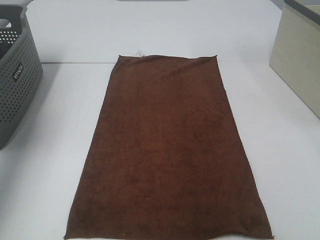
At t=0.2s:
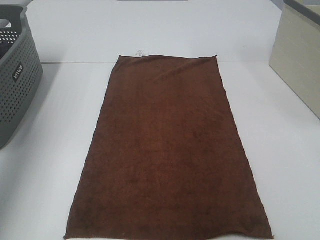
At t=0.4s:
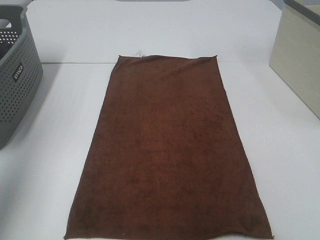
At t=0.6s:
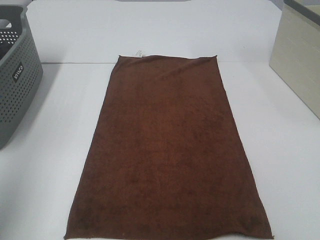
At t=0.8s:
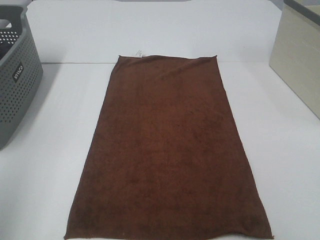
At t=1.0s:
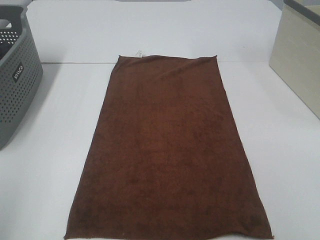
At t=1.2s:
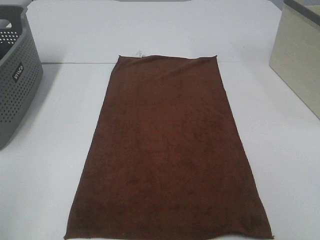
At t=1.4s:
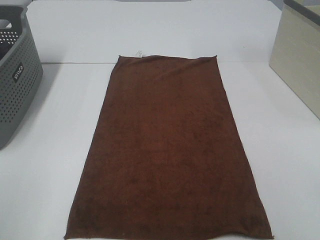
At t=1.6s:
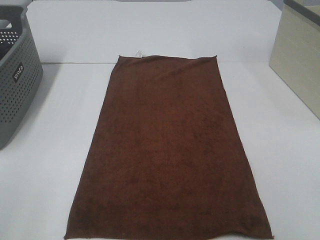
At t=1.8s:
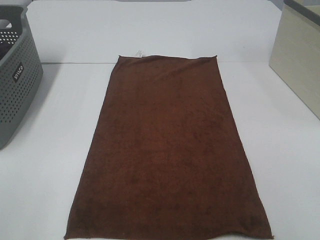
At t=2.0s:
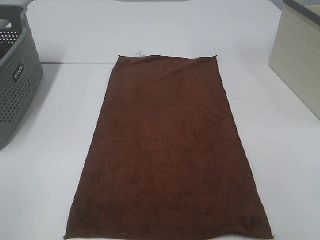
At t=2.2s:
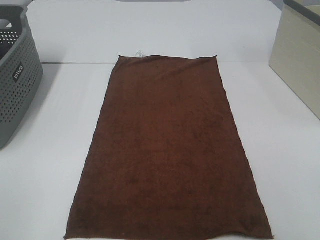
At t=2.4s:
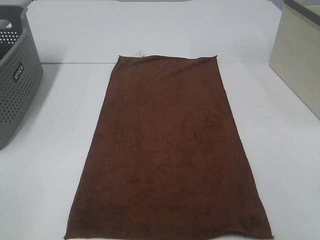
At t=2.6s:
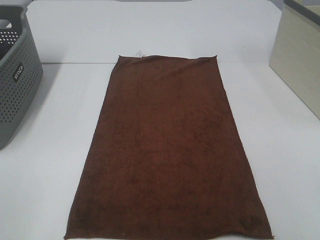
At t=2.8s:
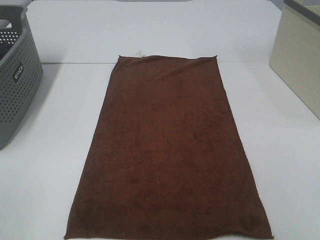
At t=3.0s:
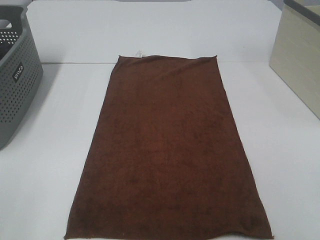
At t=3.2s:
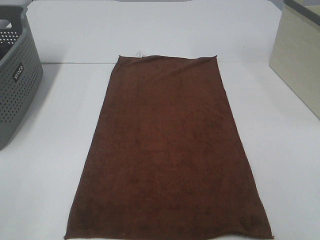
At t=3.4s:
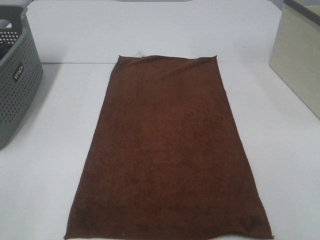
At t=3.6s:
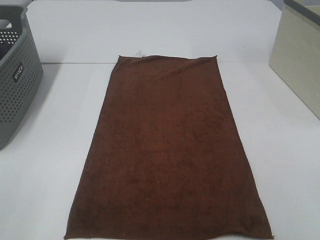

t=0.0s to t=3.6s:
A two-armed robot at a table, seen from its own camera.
Task of the whole recording: Remove the towel and place it.
t=0.0s to t=1.8s: The left gripper travels backward by roughly 30 cm.

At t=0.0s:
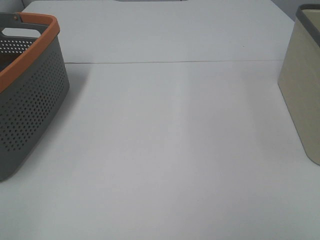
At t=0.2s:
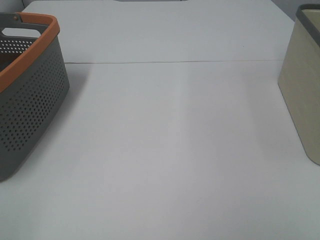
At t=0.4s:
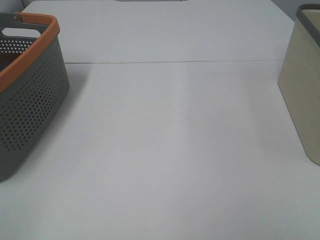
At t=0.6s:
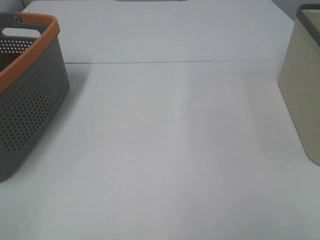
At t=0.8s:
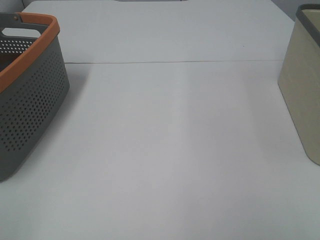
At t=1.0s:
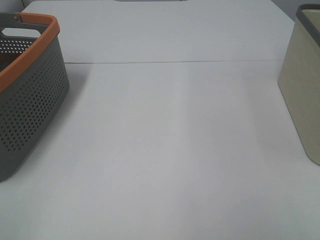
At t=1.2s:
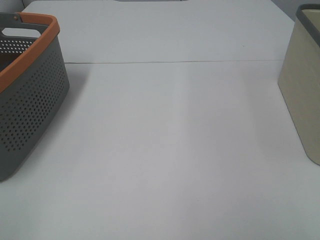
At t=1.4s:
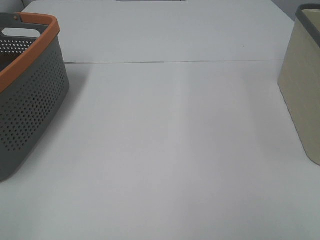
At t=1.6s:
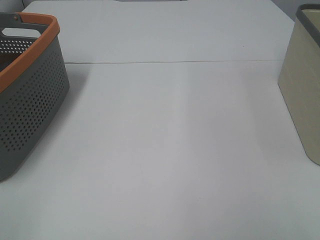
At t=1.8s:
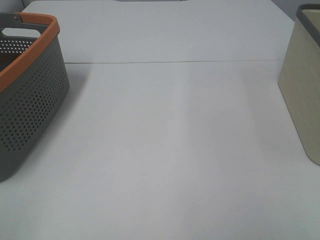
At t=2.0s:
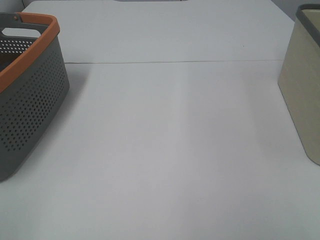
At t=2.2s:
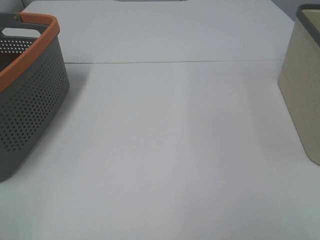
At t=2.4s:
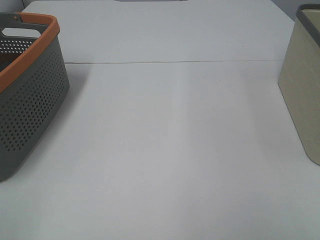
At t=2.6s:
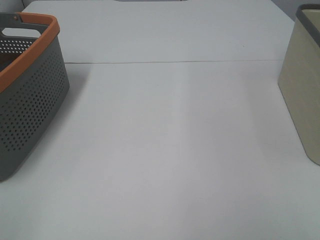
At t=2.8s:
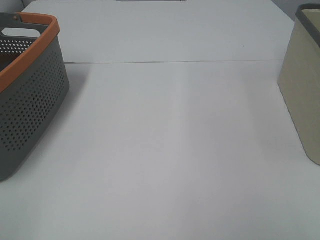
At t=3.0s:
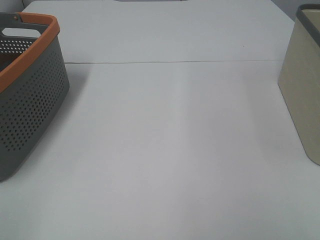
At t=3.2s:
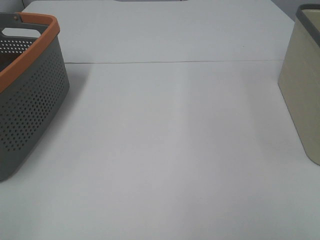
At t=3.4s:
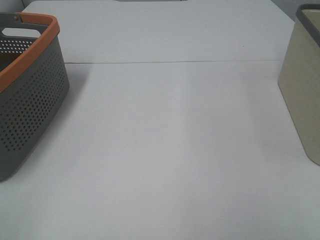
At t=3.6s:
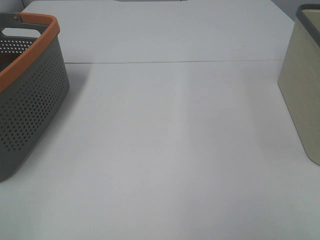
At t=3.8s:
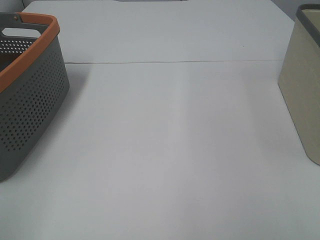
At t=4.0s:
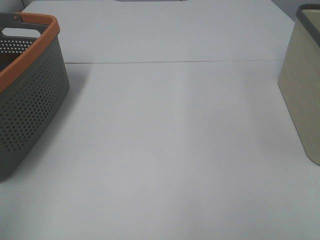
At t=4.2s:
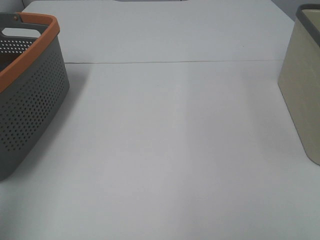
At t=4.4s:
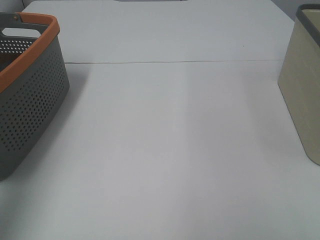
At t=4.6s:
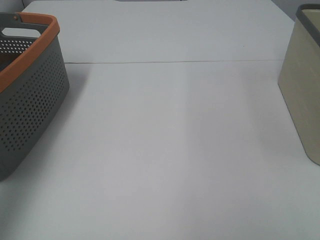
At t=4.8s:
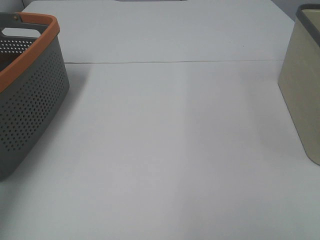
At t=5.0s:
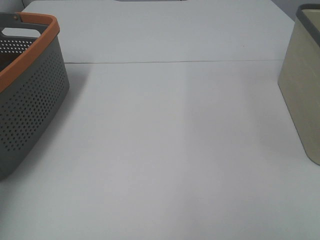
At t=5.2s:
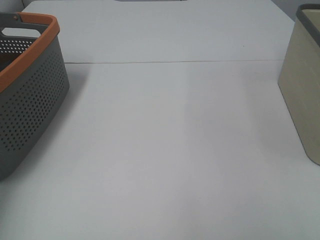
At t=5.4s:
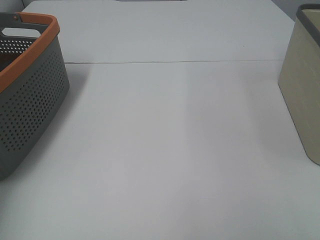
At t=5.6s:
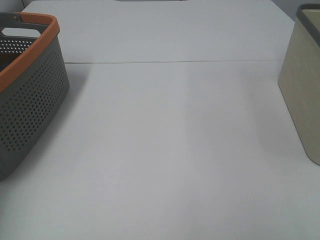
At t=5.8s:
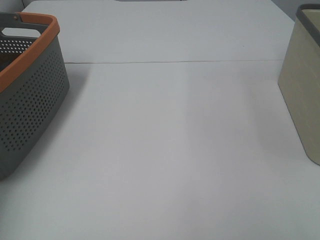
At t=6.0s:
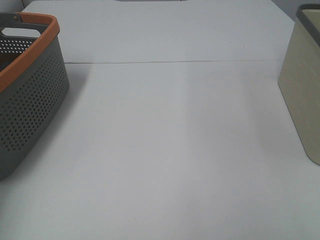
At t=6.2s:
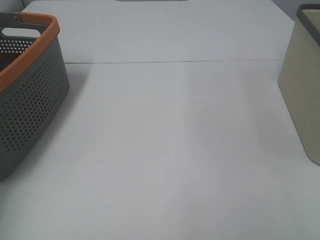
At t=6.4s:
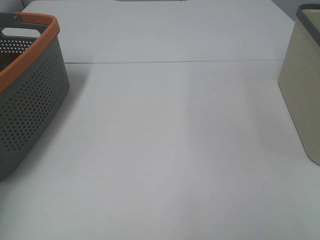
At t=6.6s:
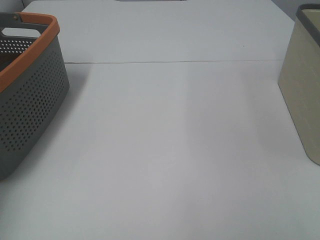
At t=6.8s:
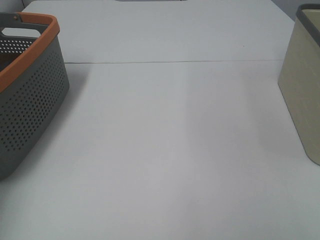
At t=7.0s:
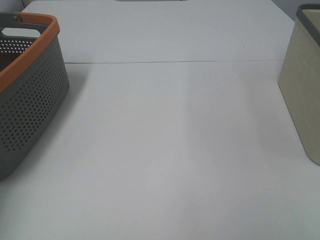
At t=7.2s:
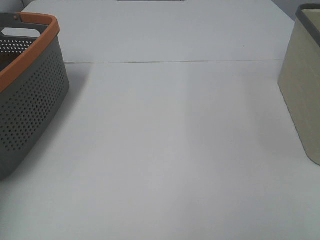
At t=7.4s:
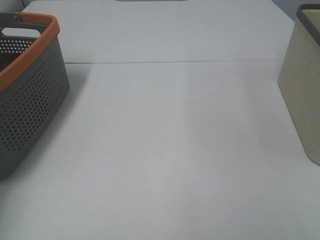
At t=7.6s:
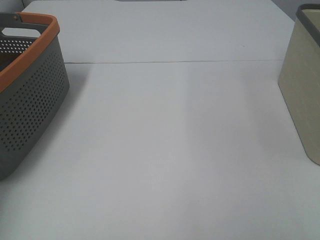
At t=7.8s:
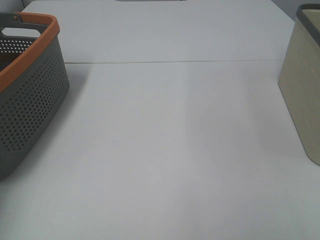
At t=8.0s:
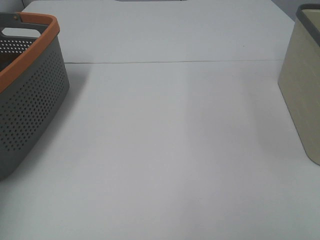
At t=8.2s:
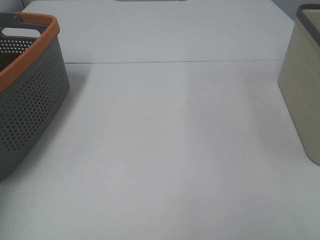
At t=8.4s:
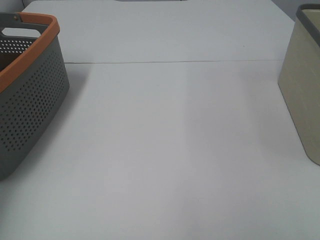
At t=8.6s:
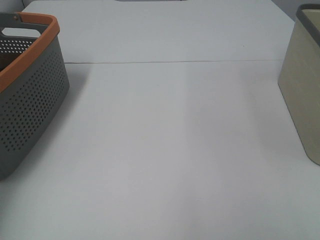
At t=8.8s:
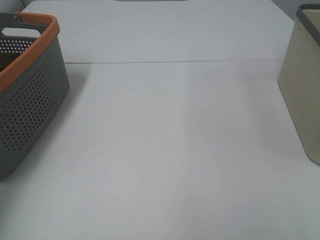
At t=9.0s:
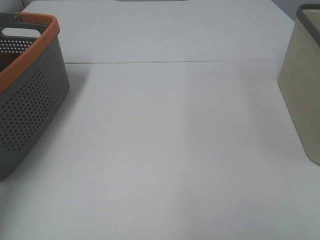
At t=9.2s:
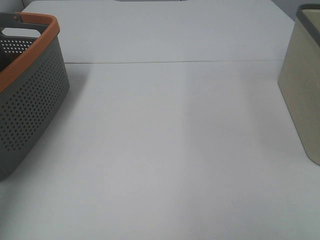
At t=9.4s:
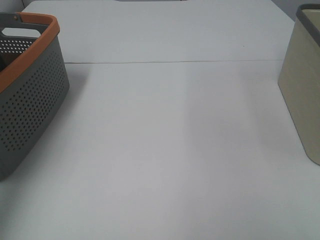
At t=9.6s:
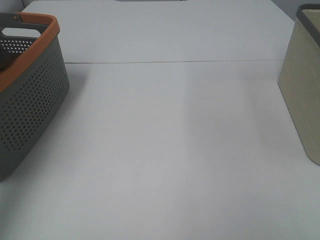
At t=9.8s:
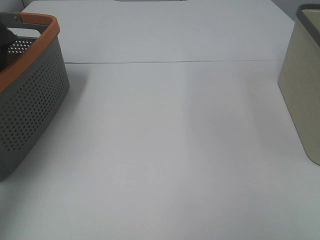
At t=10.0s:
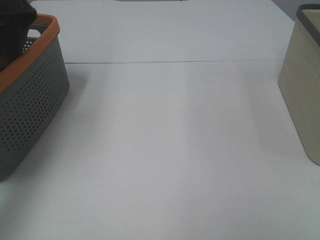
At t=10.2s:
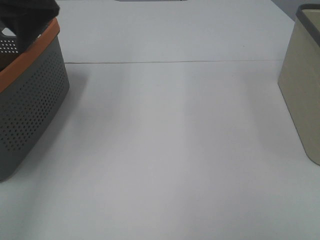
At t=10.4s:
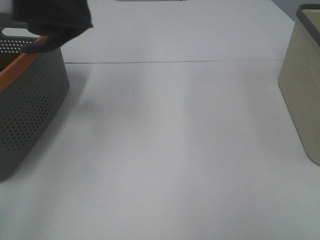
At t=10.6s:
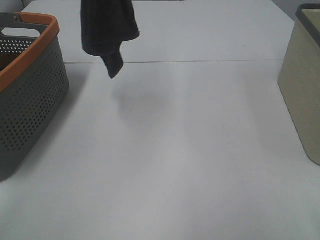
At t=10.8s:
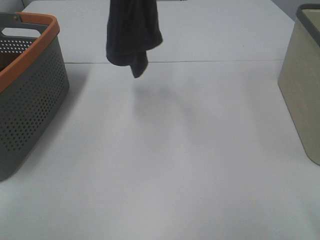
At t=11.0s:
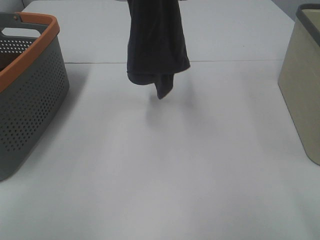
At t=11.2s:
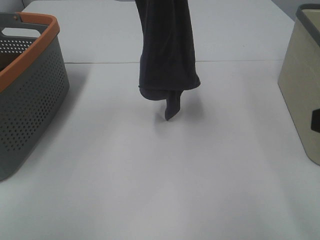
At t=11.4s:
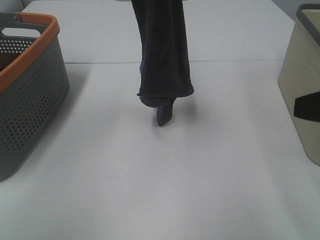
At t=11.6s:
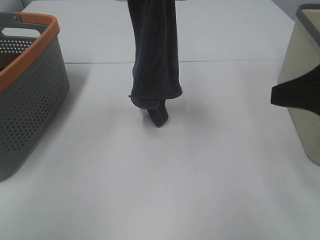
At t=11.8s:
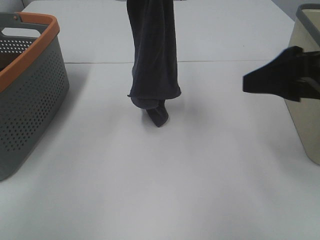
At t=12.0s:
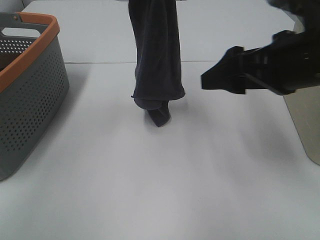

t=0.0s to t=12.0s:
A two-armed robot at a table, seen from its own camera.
Task of the whole recording: Remove the towel and place it.
t=1.6s to t=3.0s: Both grippers stay put.
t=3.0s to t=4.4s: The left gripper travels forward and upward by about 25 cm.
t=4.4s to t=6.0s: The left gripper moves downward and forward, approximately 30 cm.
t=9.0s to t=10.4s: The left gripper shifts about 20 cm to the right and upward.
t=10.4s to t=12.0s: The left gripper is displaced to the right and downward by roughly 20 cm. Meanwhile the right gripper moves forward and to the left, some 20 cm.

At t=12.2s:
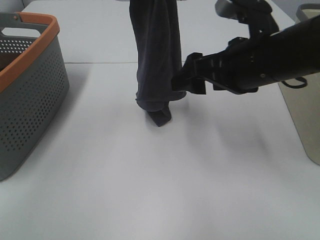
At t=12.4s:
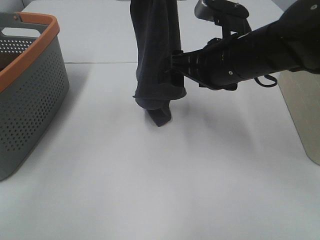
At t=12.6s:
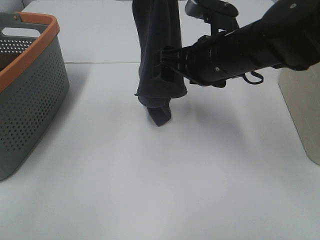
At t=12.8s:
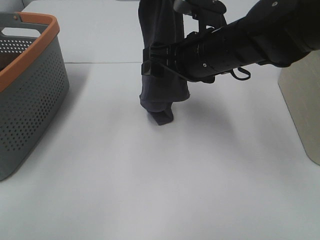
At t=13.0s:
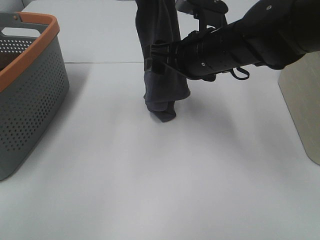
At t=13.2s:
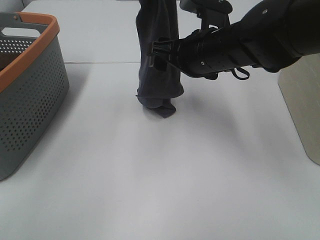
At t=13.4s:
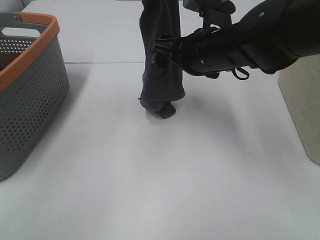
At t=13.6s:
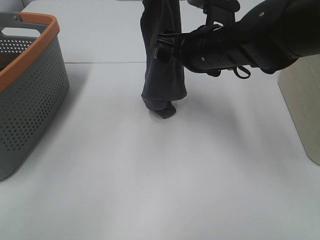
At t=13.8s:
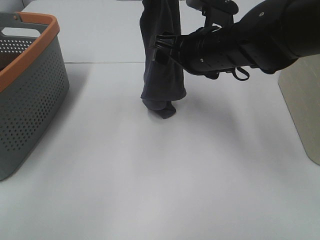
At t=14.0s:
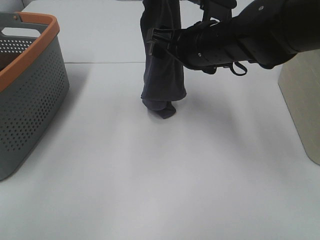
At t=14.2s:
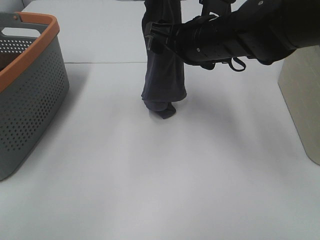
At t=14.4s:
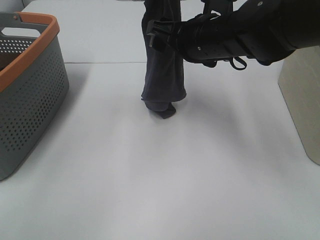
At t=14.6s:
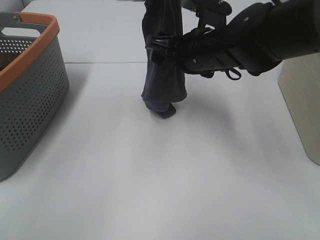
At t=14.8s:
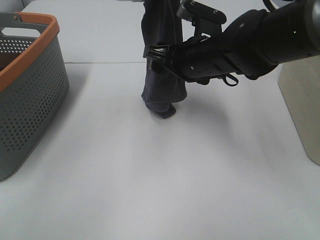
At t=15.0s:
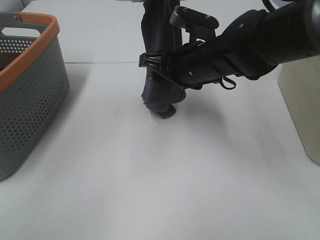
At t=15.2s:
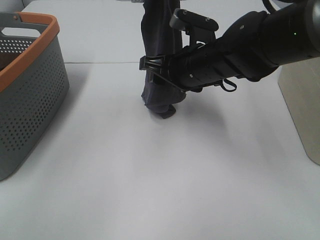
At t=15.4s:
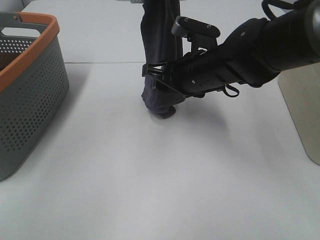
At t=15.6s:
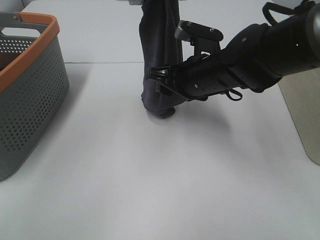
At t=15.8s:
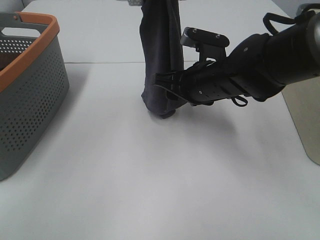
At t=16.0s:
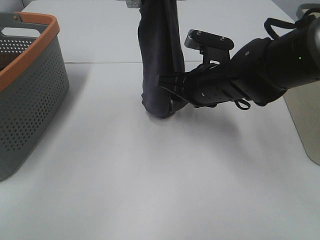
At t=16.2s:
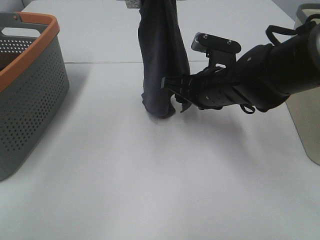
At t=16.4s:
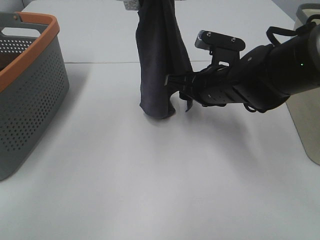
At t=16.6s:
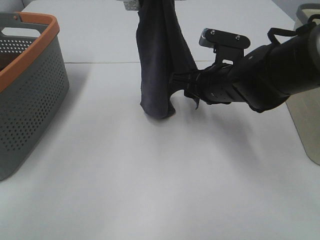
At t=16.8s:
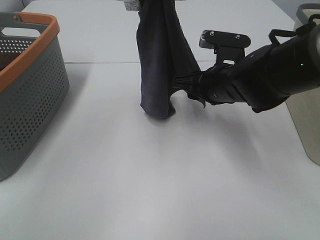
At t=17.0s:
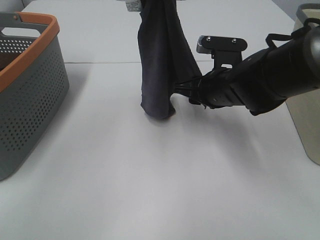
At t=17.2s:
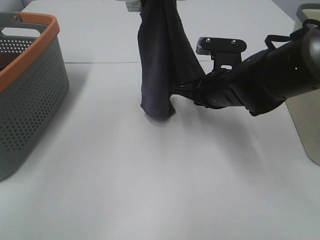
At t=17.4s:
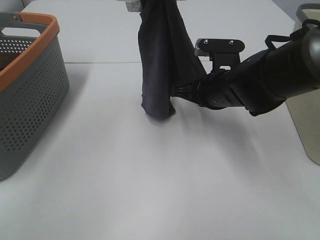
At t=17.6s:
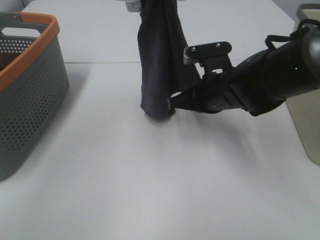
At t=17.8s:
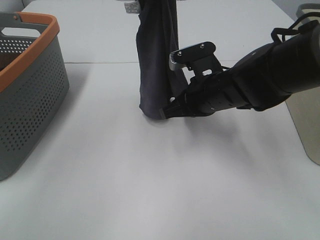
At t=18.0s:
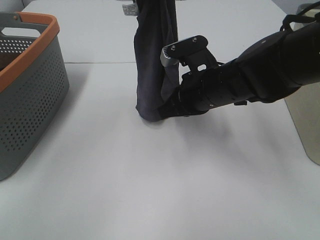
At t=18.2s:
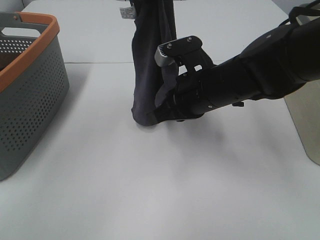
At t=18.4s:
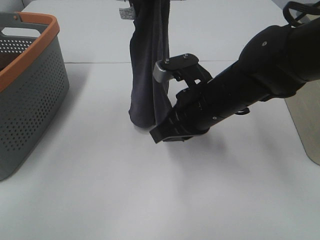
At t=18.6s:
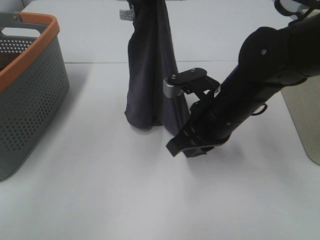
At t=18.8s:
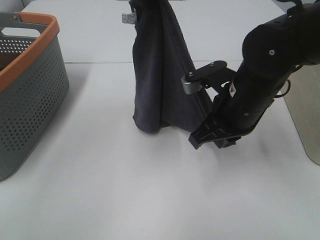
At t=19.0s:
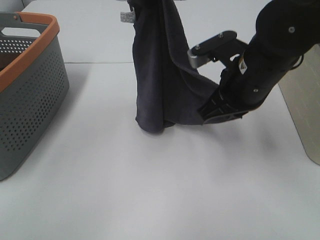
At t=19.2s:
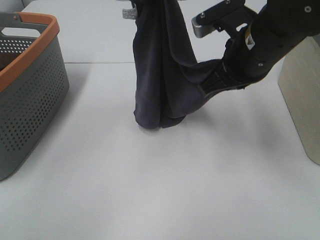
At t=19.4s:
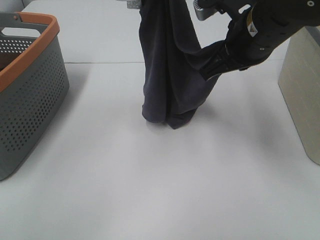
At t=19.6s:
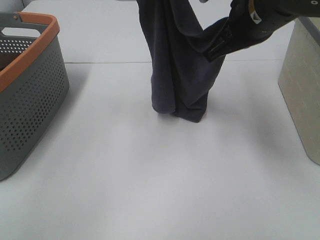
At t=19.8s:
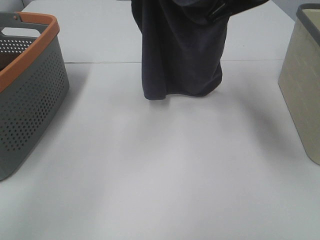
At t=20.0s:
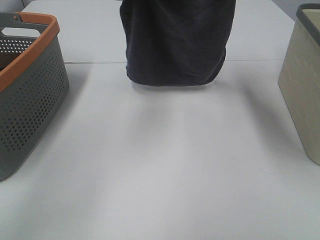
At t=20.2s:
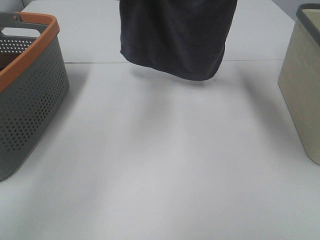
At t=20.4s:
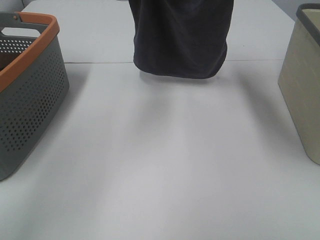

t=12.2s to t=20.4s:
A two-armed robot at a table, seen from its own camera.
Task of the whole recording: Remove the towel and place it.
Step, t=12.2s to t=16.0s: Right hand: grab a corner of the grey towel and straighten it.
Step, t=16.2s to t=20.0s: Left hand: spread the grey towel flat on the table.
Step, t=16.2s to t=20.0s: Right hand: spread the grey towel flat on the table.
t=12.2s to t=13.8s: The right gripper moves forward, roughly 5 cm.
t=13.8s to t=15.4s: The grippers stay close to where they were, moving slightly.
t=15.4s to t=17.2s: The right gripper shifts by approximately 5 cm, and closes up.
t=17.2s to t=18.8s: The right gripper shifts about 5 cm backward.
t=18.8s to t=20.4s: The right gripper heads upward and forward, covering roughly 20 cm. The left gripper moves forward, some 10 cm.
